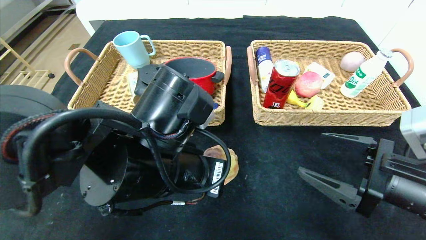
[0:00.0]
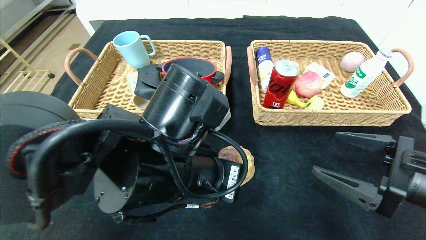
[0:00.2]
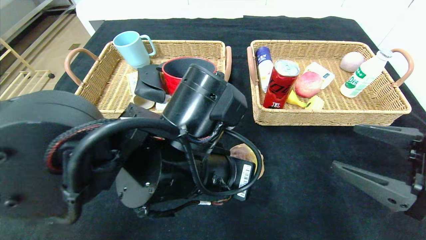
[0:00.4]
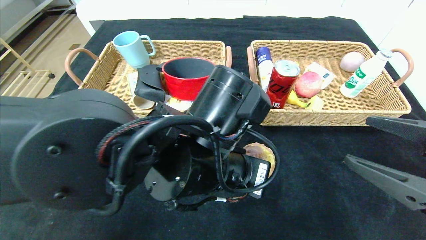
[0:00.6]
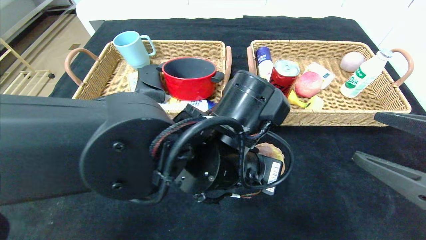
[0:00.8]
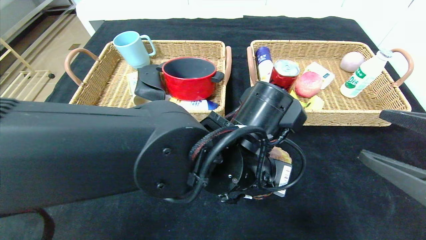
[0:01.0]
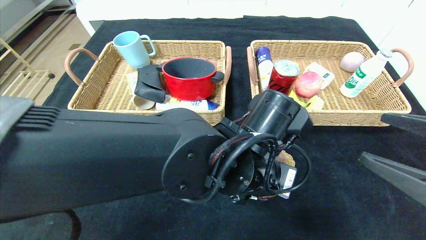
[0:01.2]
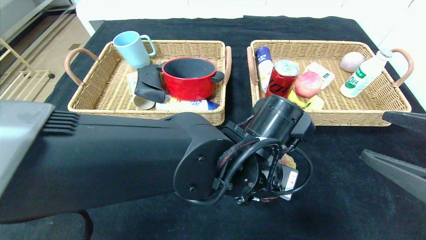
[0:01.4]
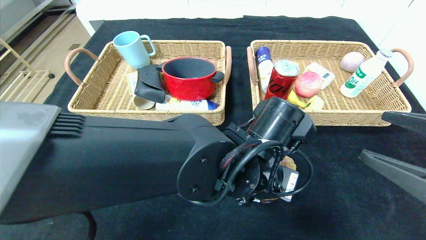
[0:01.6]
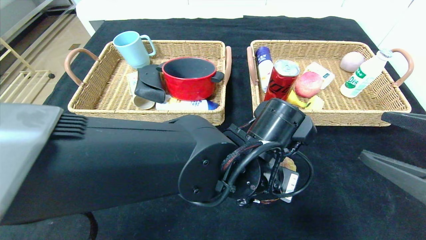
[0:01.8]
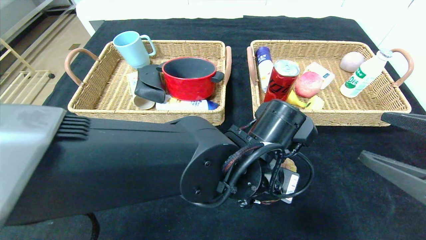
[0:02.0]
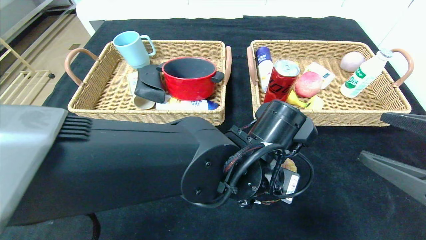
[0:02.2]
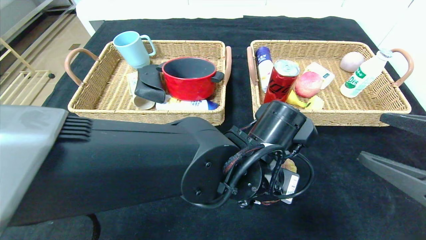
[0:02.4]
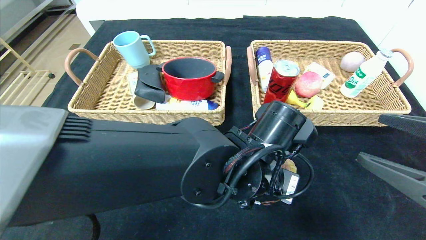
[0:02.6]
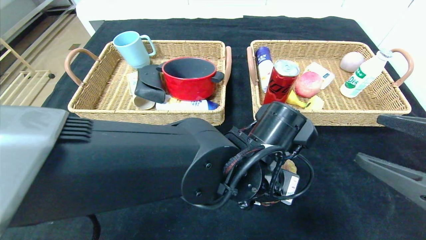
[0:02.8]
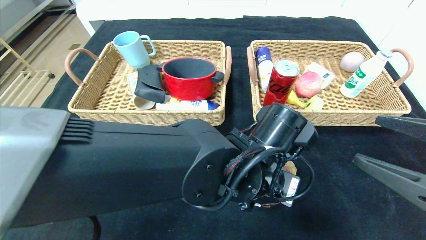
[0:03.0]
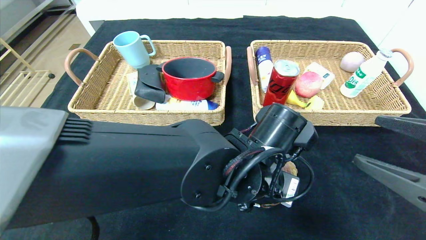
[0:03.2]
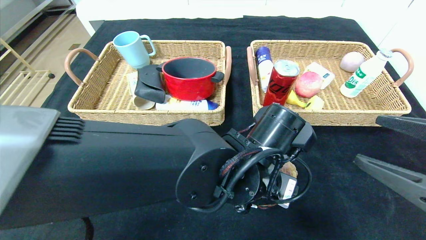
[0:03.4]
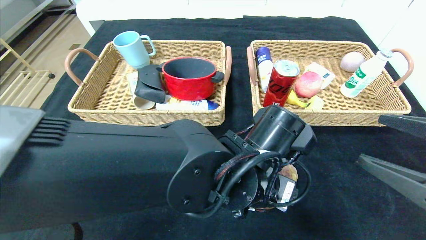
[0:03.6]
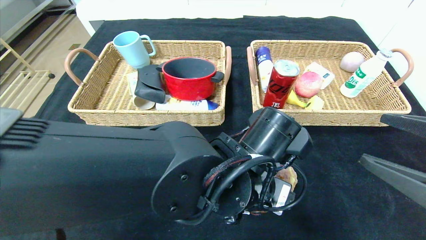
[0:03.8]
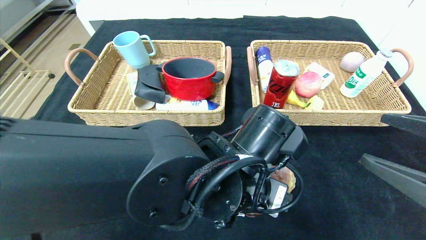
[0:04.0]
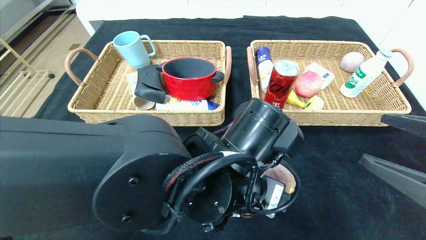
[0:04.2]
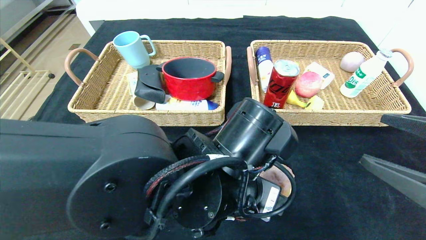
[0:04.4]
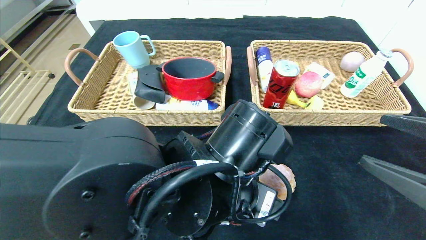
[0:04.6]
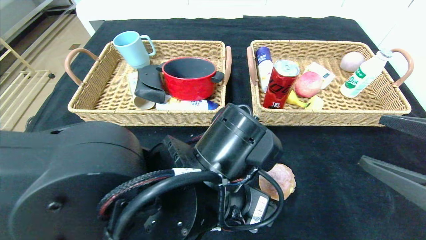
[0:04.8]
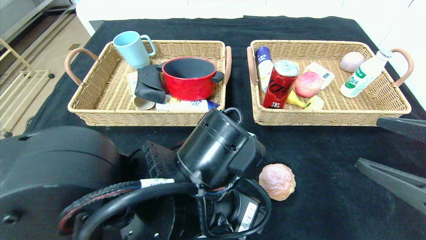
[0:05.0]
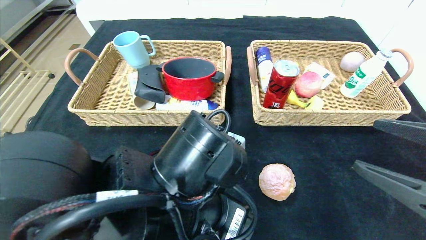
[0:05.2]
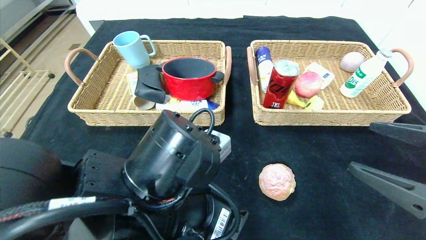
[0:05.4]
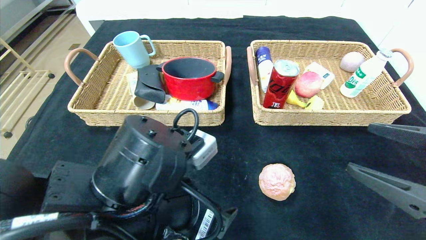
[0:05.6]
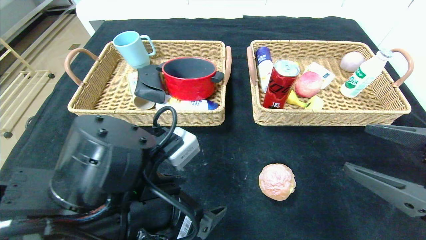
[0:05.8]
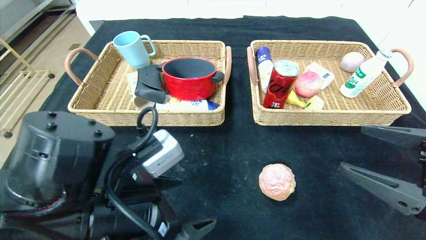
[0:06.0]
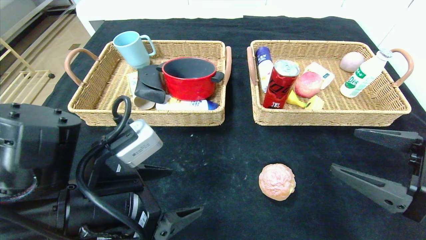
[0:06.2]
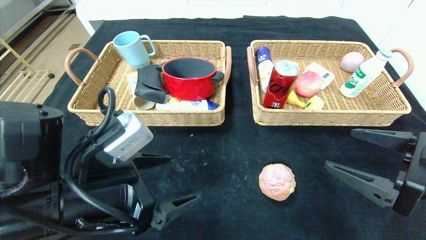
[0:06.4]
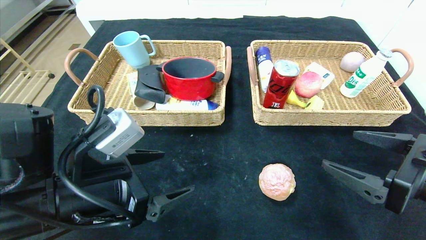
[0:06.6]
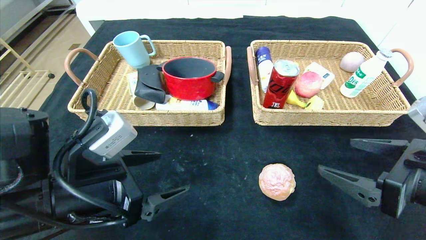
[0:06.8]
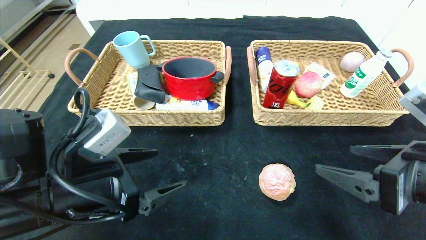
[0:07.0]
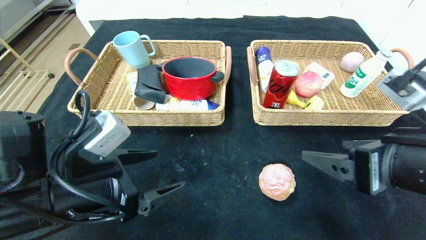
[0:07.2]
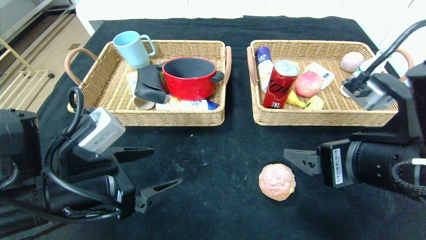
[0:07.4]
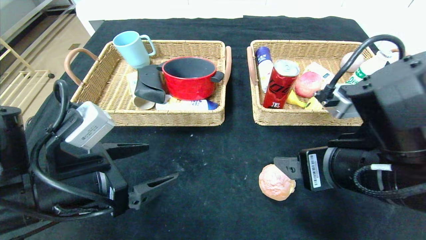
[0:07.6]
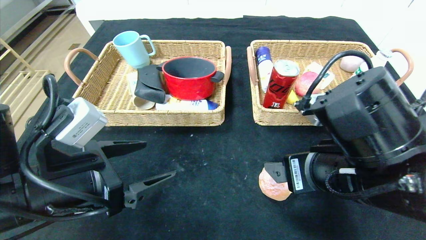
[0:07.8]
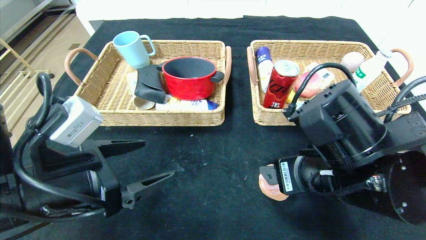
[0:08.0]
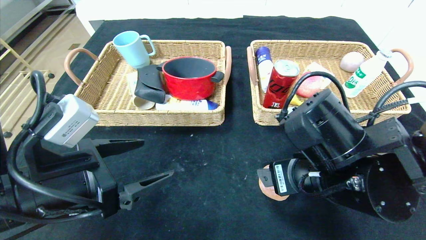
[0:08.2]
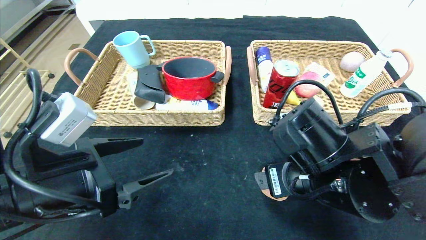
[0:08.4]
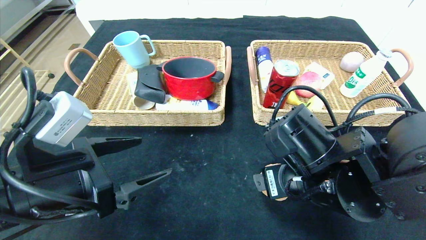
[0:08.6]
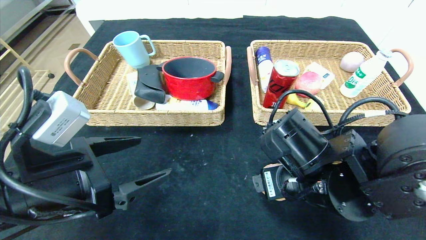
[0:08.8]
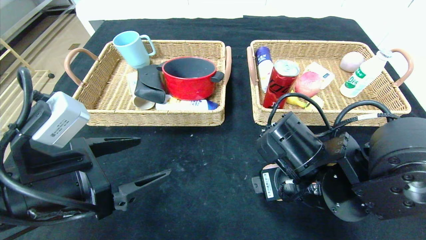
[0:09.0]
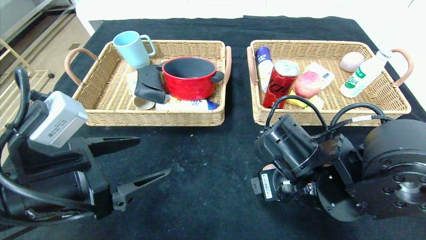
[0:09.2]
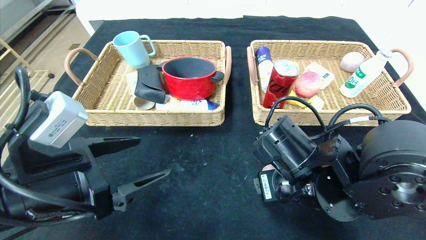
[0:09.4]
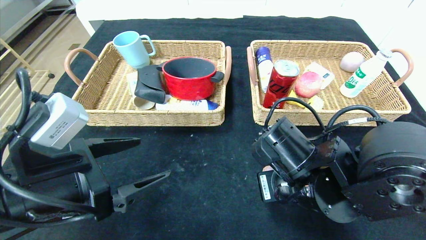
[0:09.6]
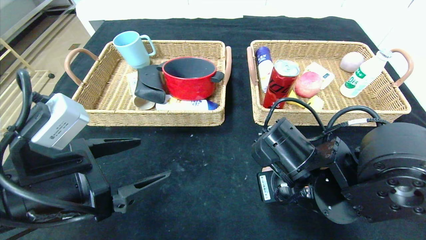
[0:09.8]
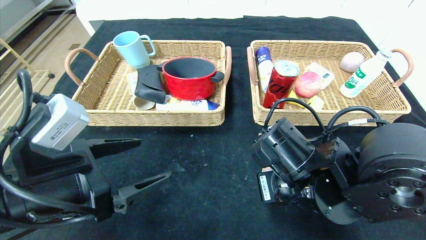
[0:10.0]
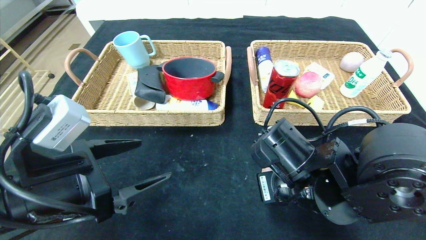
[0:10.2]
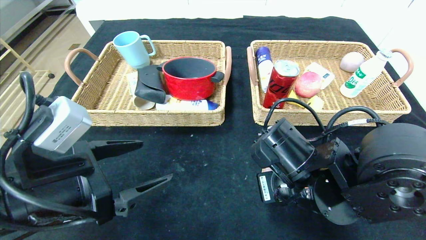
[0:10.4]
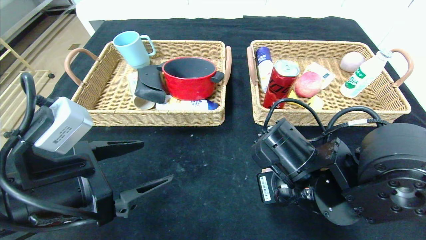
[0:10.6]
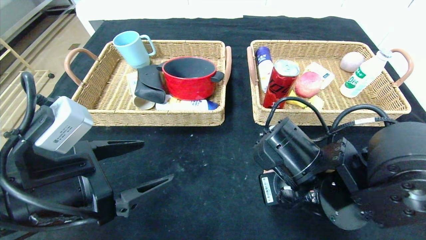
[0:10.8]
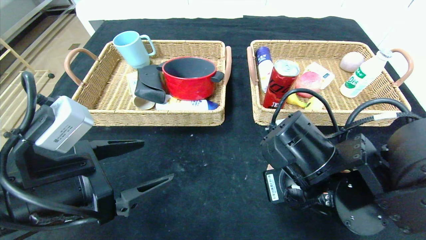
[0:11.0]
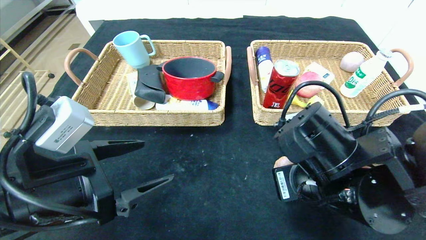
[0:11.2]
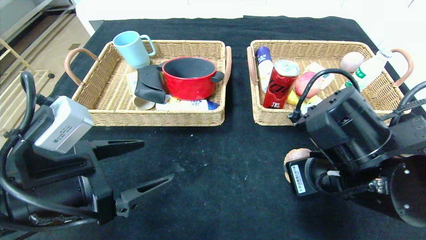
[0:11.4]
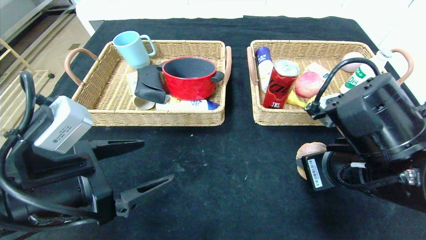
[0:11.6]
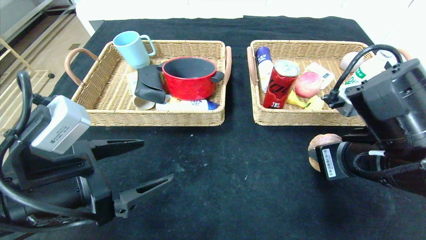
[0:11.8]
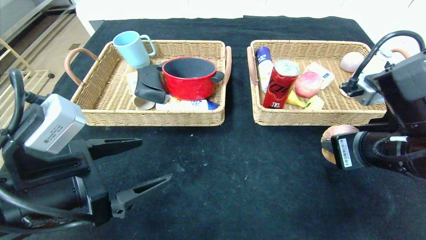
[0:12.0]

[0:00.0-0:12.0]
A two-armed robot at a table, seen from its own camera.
Step, 0:00.0 to 0:04.2: Place the round bread in the center of the table.
0:00.0 to 0:01.6: The left gripper is displaced to the right by approximately 10 cm, while the right gripper goes roughly 5 cm upward.
0:01.6 to 0:03.0: Both grippers stay put.
0:03.0 to 0:04.4: The left gripper changes place by roughly 5 cm.
0:04.4 to 0:06.0: The left gripper heads to the left, covering some 15 cm.
0:06.0 to 0:07.6: The right gripper is displaced to the left by some 10 cm, while the left gripper shifts approximately 5 cm to the left.
0:07.6 to 0:09.0: The right gripper heads downward, covering approximately 5 cm.
0:09.0 to 0:10.4: The right gripper closes.
0:10.4 to 0:12.0: The right gripper shifts about 10 cm to the right and upward.

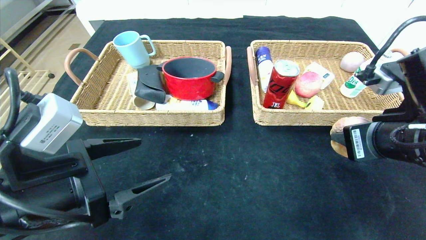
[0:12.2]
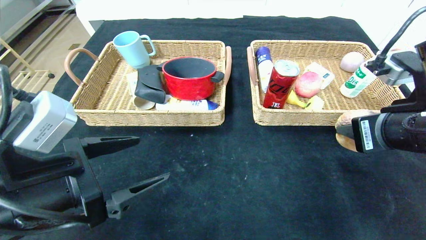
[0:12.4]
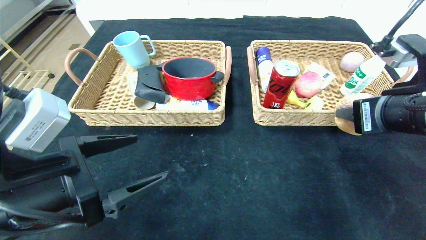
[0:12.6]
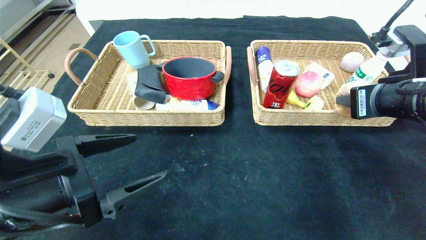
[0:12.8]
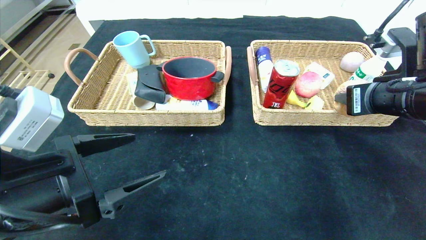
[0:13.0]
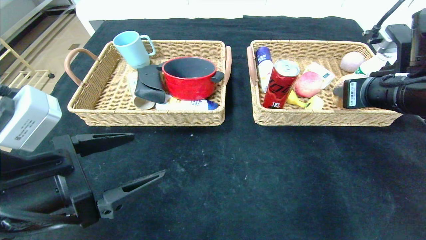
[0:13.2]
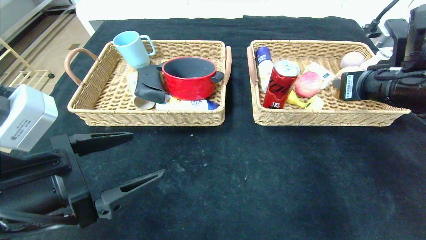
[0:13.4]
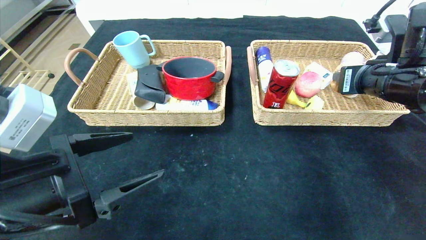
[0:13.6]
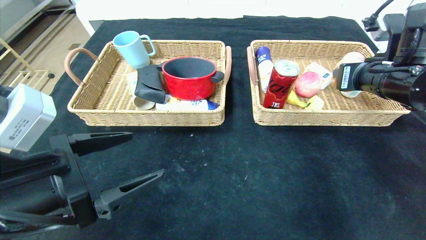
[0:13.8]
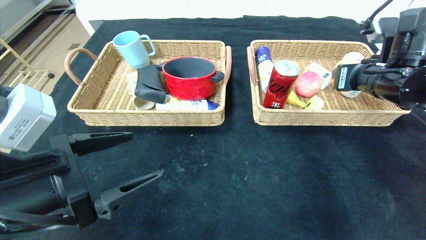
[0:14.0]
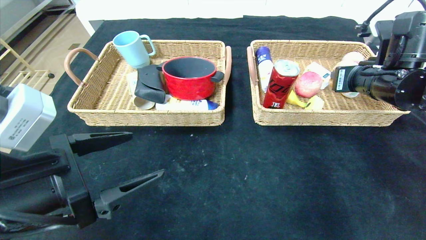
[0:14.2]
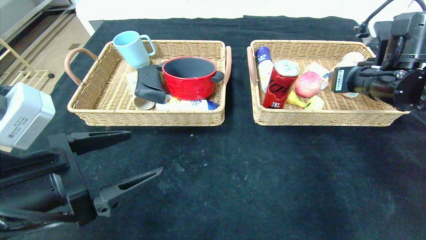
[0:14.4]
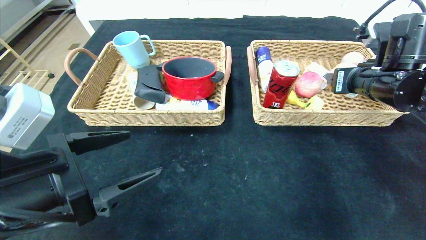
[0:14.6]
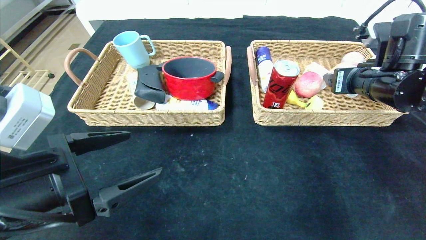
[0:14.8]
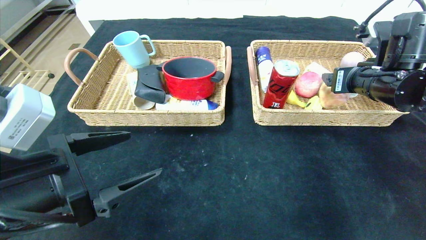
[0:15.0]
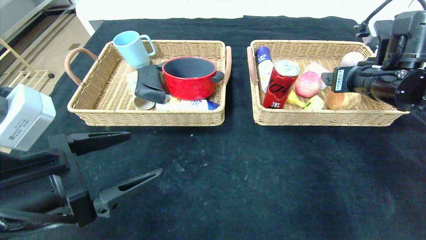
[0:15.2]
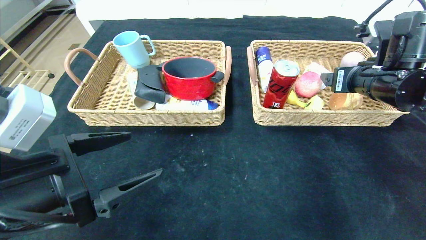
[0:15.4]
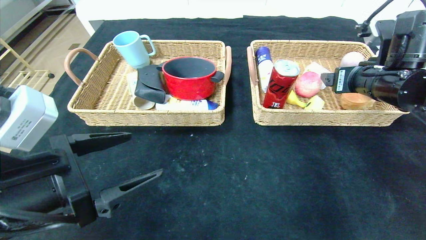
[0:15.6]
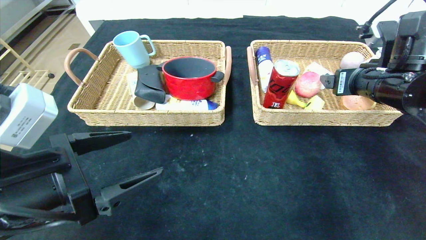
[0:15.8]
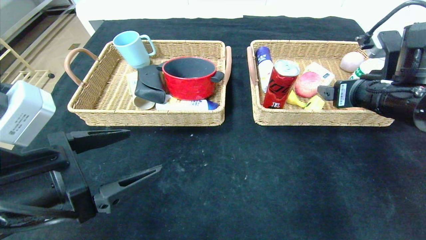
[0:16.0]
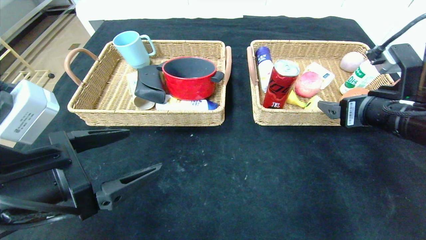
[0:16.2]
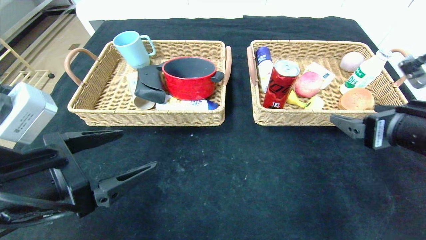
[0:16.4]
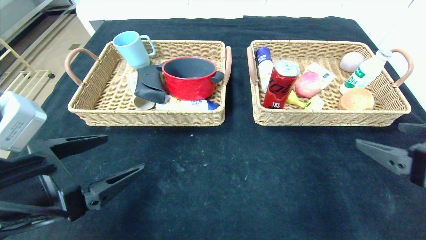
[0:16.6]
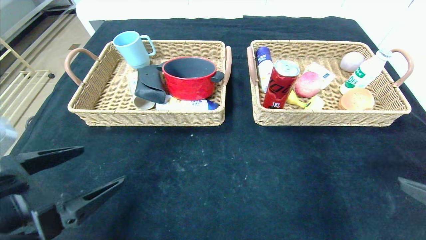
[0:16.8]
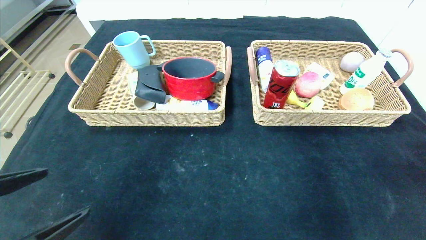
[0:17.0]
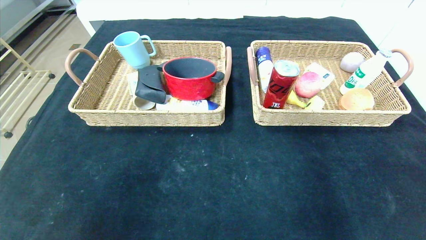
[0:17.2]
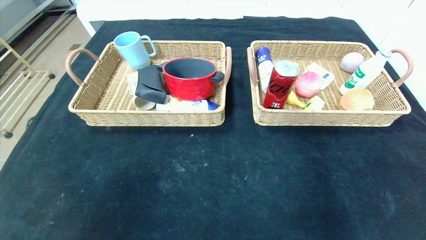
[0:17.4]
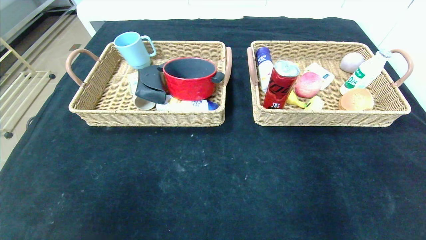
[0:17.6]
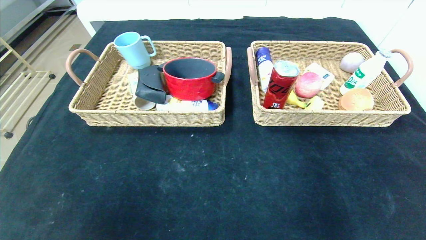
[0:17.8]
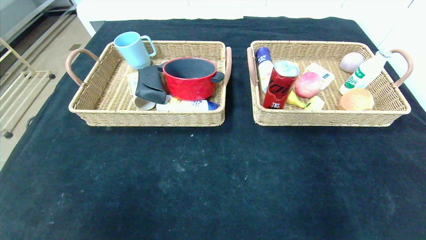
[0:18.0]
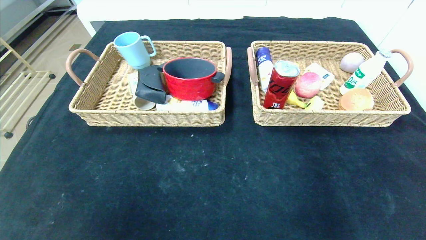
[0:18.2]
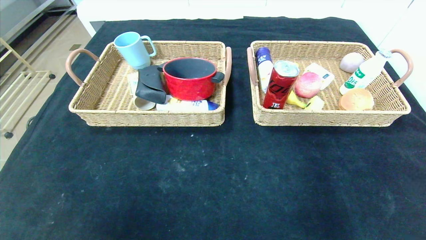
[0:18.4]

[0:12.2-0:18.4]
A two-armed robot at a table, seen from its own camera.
Step, 0:12.2 to 0:15.6: Grasp the egg yolk pastry and put it in the right basket.
Step, 0:12.2 to 0:15.6: Grasp the round bread and put it in the right basket.
0:12.2 to 0:13.8: The right gripper heads forward, covering some 10 cm.
0:13.8 to 0:15.4: The right gripper opens up.
0:15.4 to 0:16.8: The right gripper travels backward by roughly 25 cm.
0:16.8 to 0:18.4: Both grippers move backward, some 20 cm.
